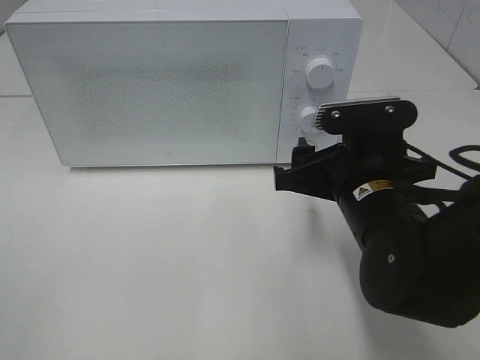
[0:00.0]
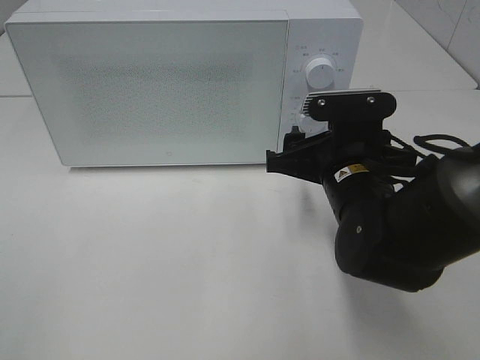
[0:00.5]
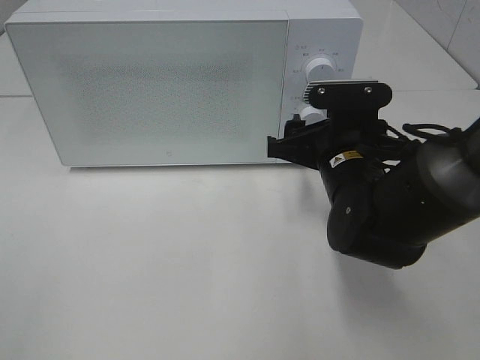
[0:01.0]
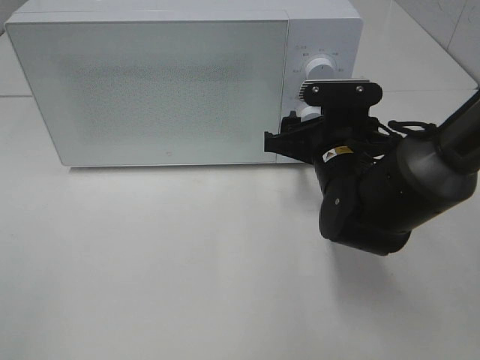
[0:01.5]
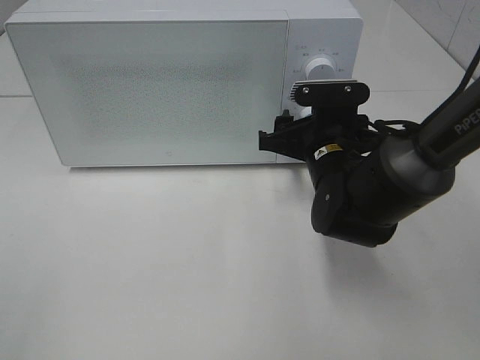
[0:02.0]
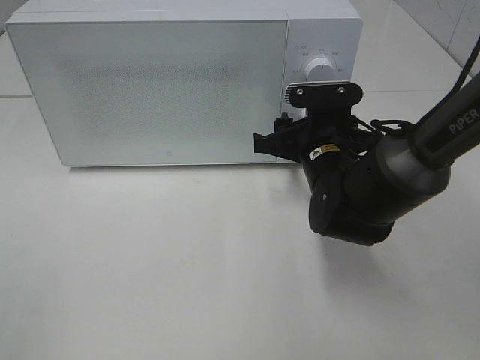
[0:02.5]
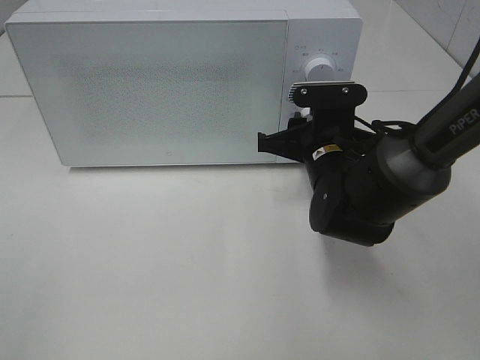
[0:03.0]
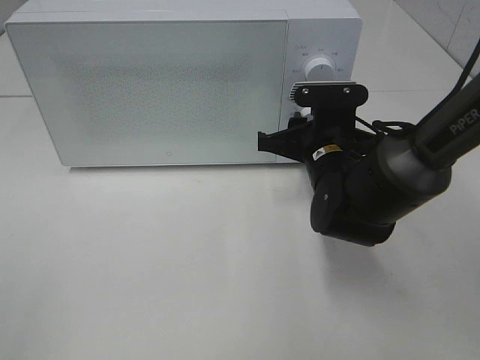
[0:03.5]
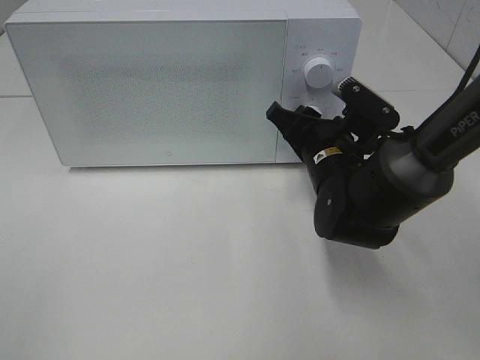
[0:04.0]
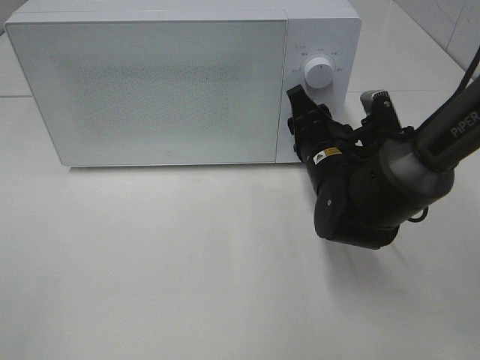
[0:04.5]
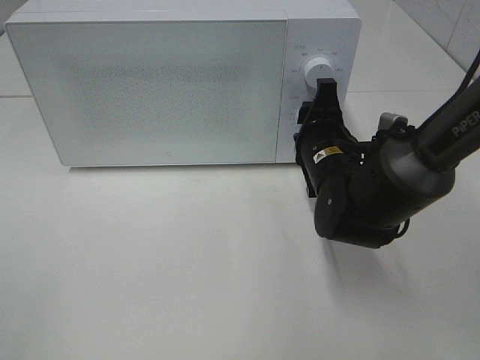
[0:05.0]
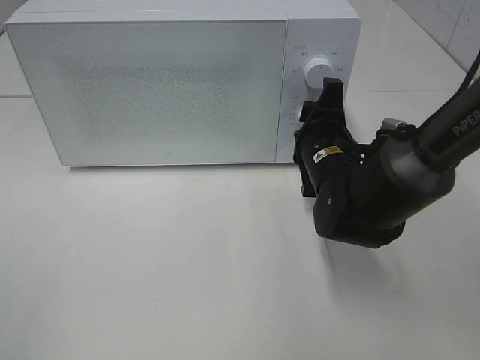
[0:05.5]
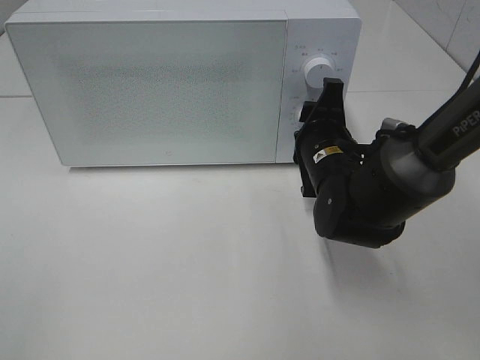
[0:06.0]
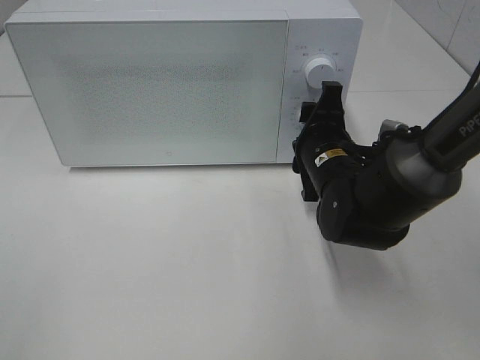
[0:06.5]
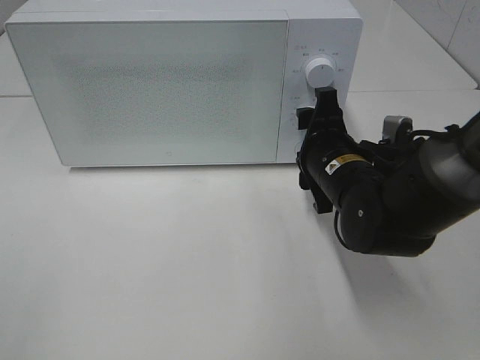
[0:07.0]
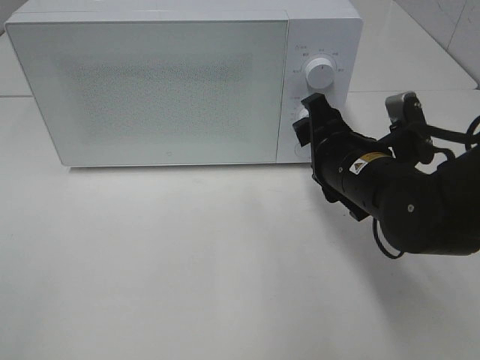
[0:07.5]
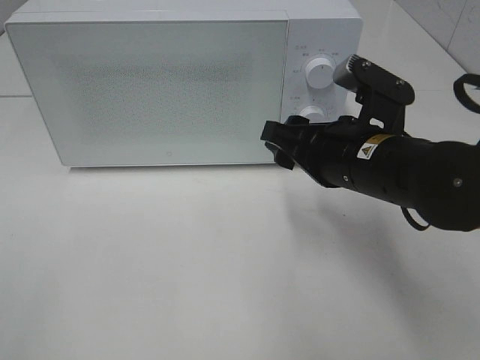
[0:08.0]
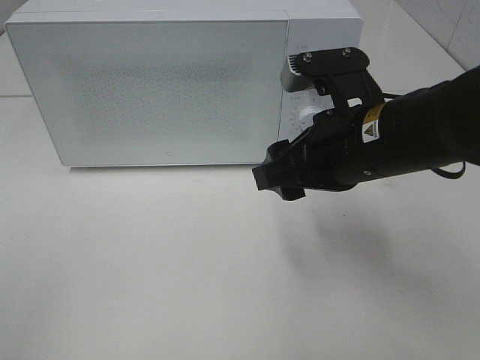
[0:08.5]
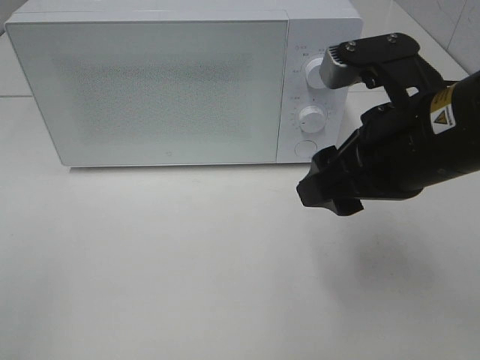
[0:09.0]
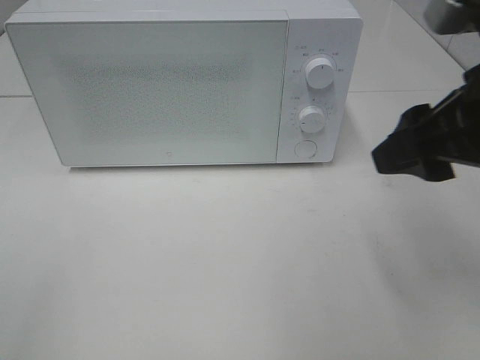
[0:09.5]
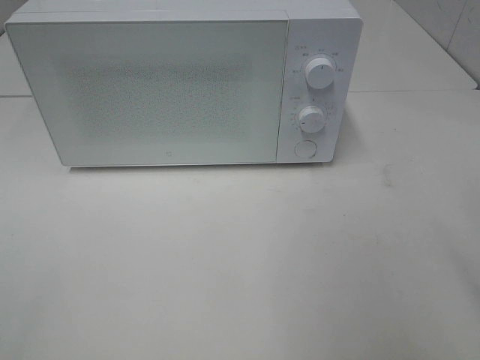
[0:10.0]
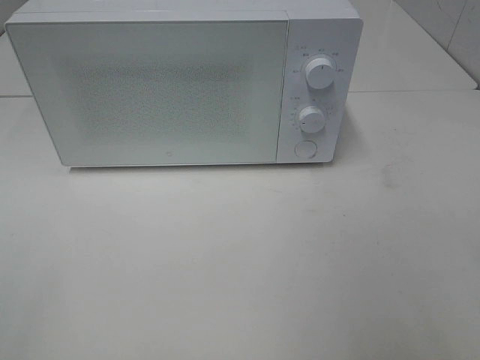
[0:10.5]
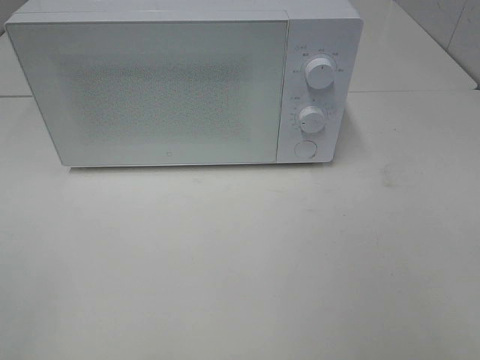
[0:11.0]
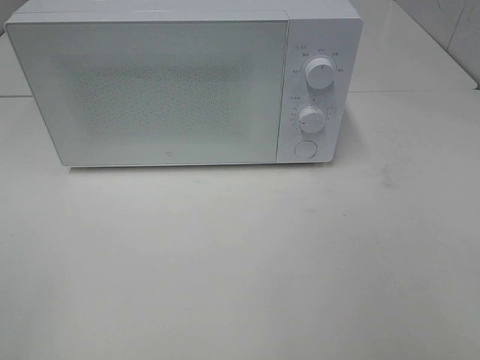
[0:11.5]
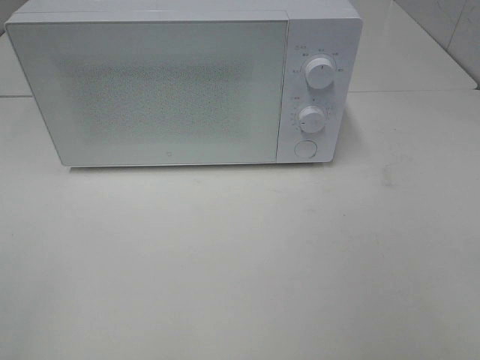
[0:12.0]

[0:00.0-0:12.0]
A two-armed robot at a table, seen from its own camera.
Task of the whole recording: Heat the burger.
Step, 0:00.0 to 0:06.5: Right hand: twist timer button.
0:00.0 to 0:02.0: The right gripper is displaced forward by about 10 cm.
0:02.0 to 0:04.0: The right gripper closes.
0:06.0 to 0:08.0: The right gripper heads backward and upward, covering approximately 10 cm.
0:08.0 to 0:10.0: The right gripper goes some 25 cm backward, to the right and upward.

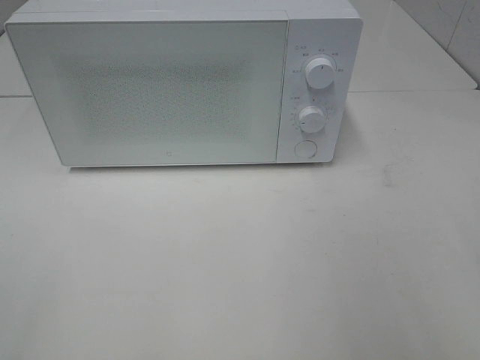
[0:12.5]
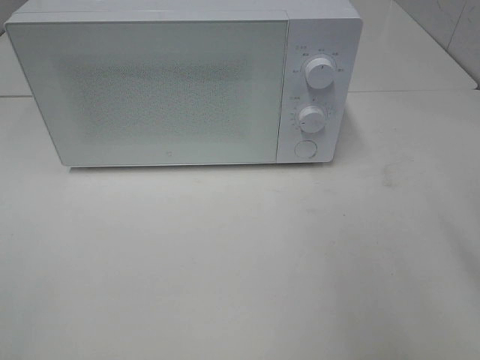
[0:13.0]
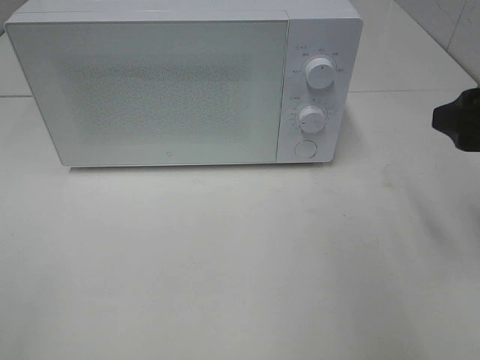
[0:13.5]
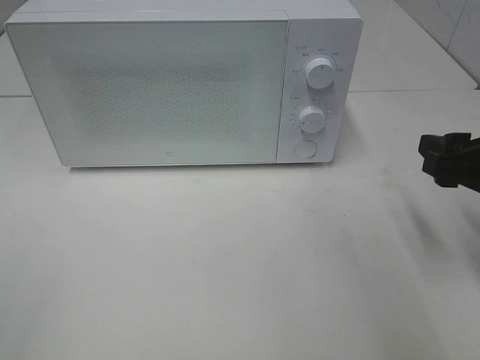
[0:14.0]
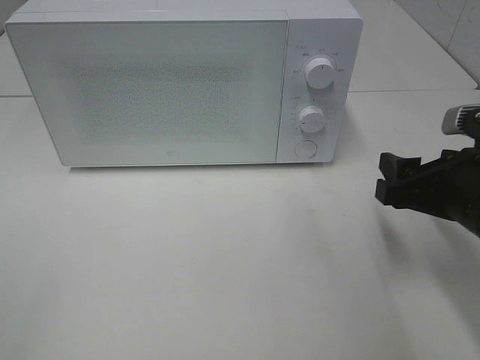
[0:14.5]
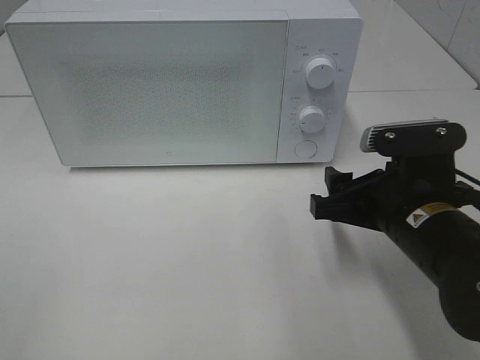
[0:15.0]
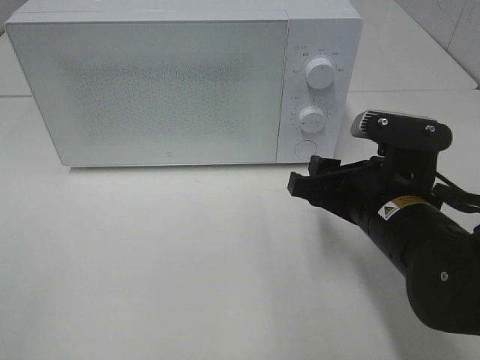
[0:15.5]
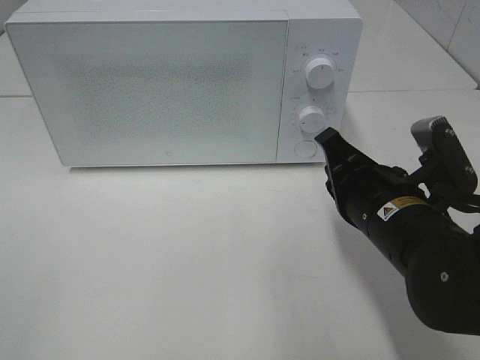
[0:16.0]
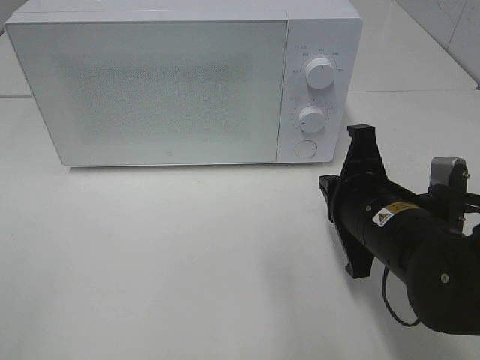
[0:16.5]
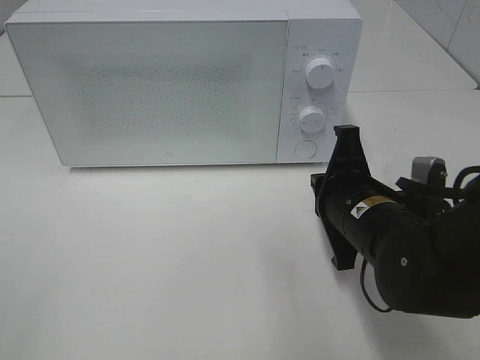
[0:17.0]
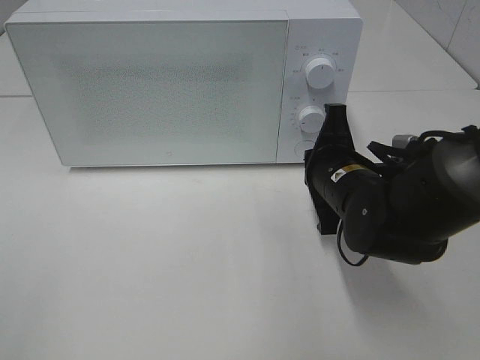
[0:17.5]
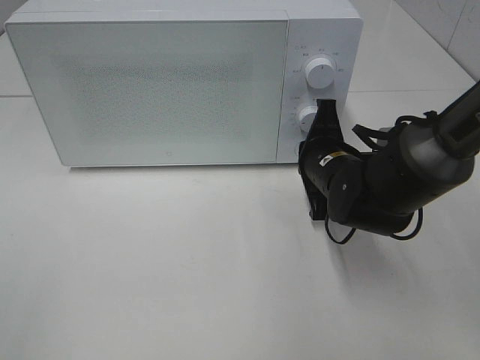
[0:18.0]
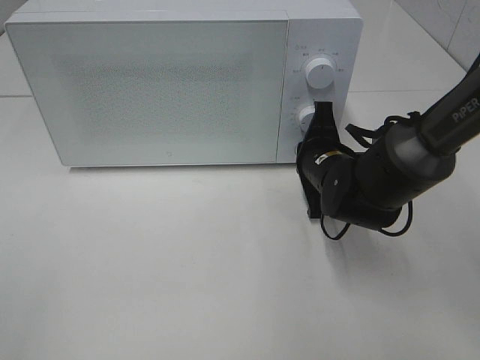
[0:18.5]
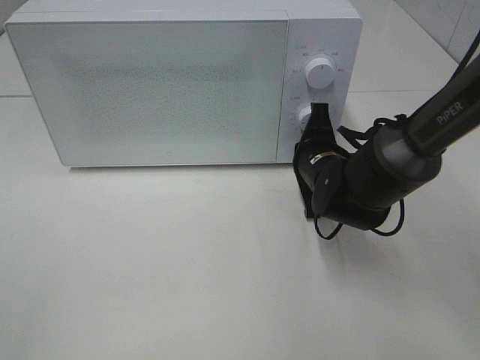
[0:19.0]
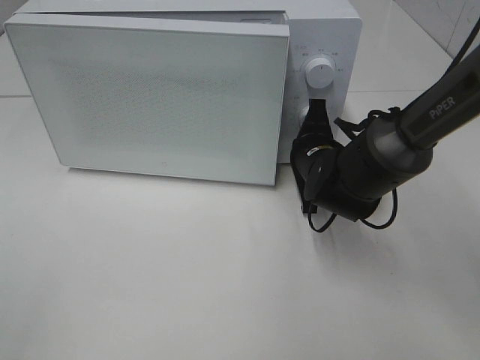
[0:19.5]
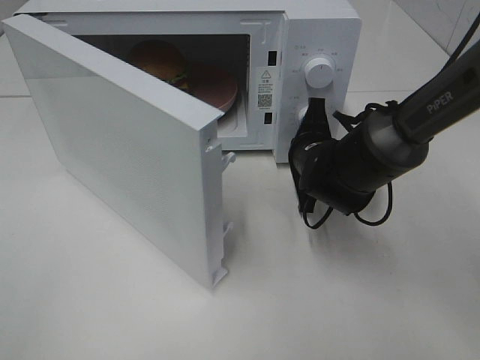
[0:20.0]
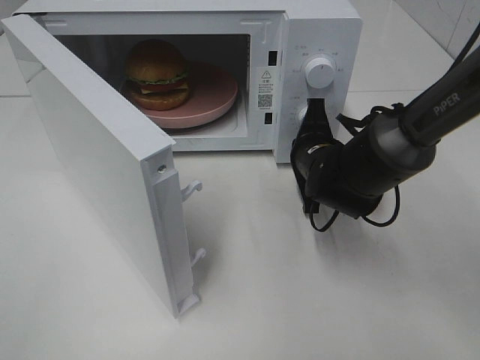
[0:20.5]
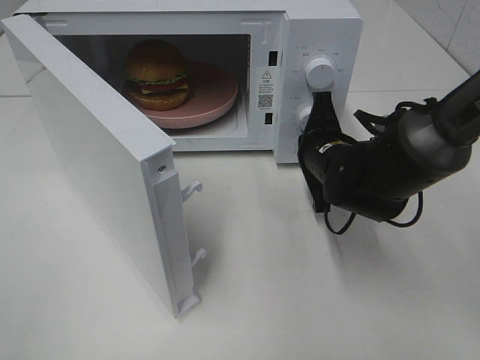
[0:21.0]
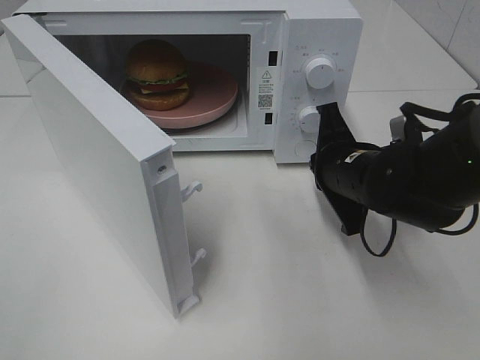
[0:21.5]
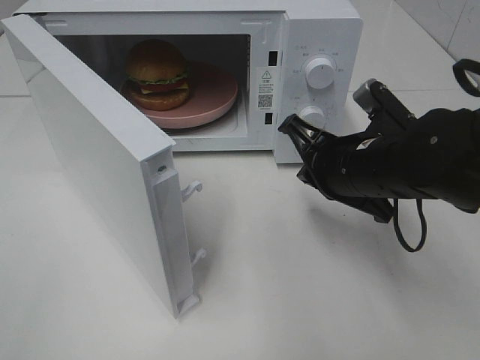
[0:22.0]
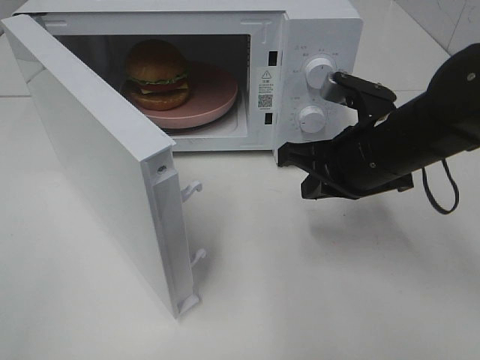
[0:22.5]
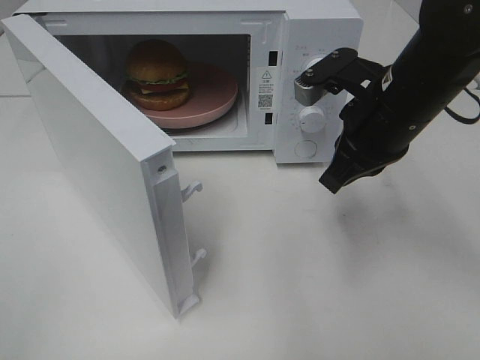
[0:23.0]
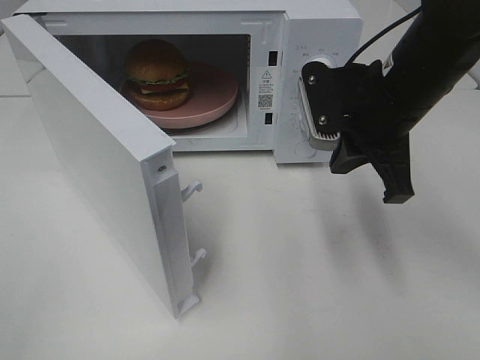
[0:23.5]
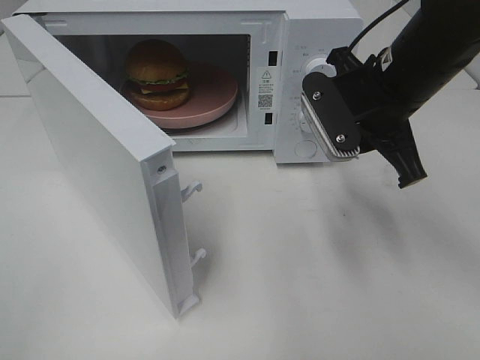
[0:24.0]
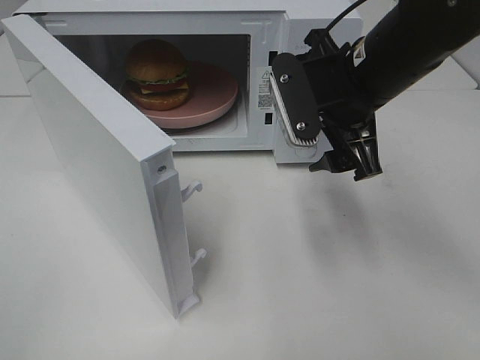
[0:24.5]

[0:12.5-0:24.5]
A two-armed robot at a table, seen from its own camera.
Task of the whole recording: Heat the burger.
Step, 0:12.5 to 0:21.0: Right hand: press the switch.
0:12.5 to 0:14.5: The right gripper heads downward and forward, covering about 20 cm.
0:14.5 to 0:16.5: The right gripper travels to the left by roughly 10 cm, and closes its fingers.
0:16.5 to 0:18.5: The right gripper moves forward, about 15 cm.
0:20.5 to 0:22.5: The right gripper heads upward and backward, covering about 10 cm.
0:22.5 to 0:24.5: The right gripper heads upward, covering about 5 cm, and opens its fingers.

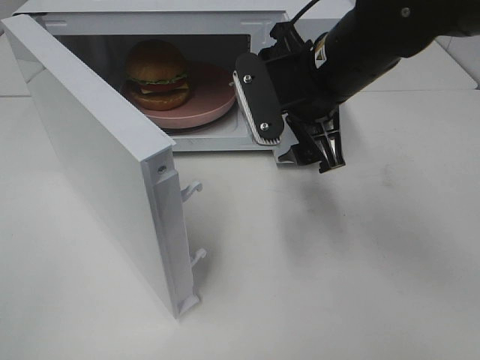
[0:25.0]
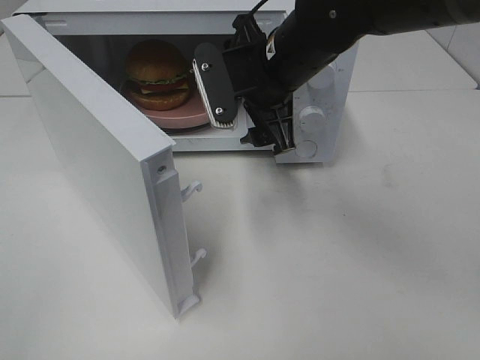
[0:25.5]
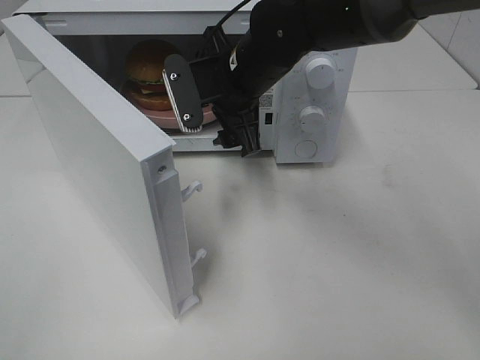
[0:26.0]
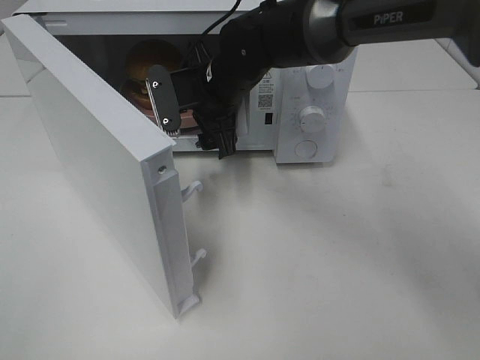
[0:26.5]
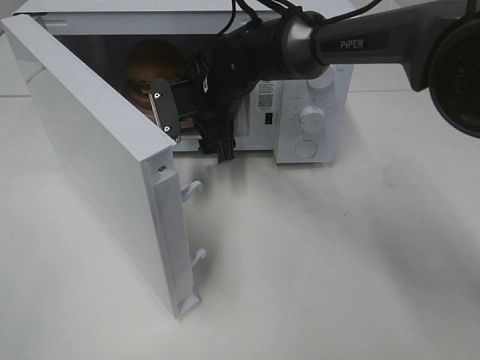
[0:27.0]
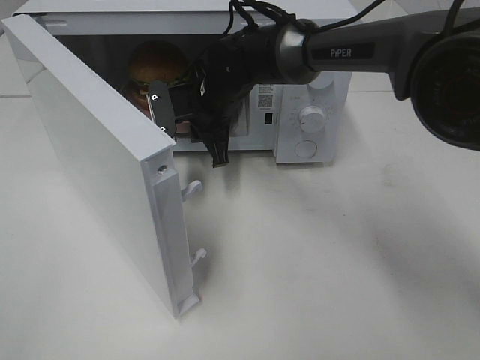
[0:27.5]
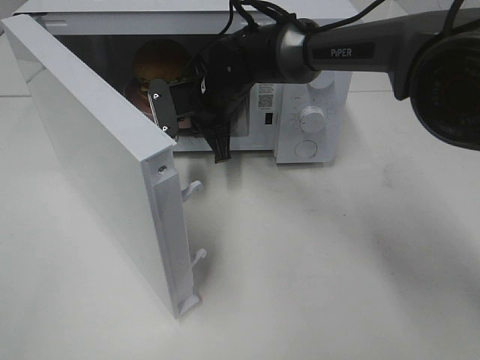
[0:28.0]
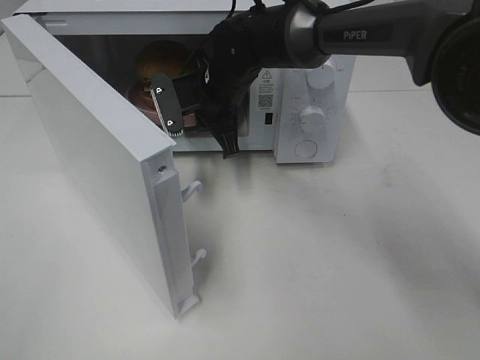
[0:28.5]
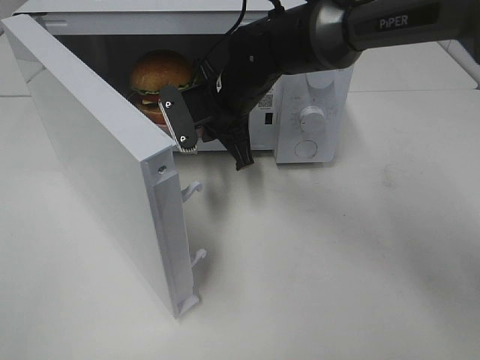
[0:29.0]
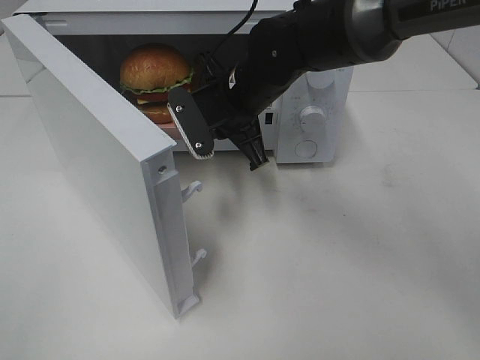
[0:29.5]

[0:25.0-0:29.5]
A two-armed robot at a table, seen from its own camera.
Task of the whole recording: Heat the burger.
Step, 0:25.0 to 0:27.5: Right hand: grab the plate with the hamburger.
0:25.0 to 0:27.0: The right gripper travels forward, to the left and downward by roughly 20 cm.
0:27.0 to 0:29.5: The right gripper is displaced backward by roughly 5 cm, and closes up.
